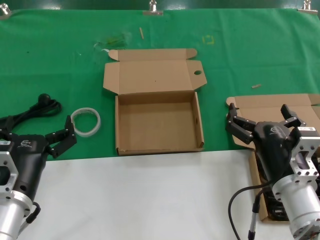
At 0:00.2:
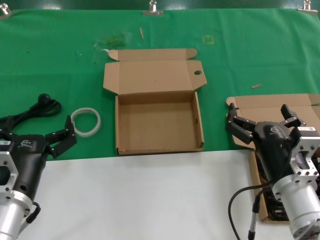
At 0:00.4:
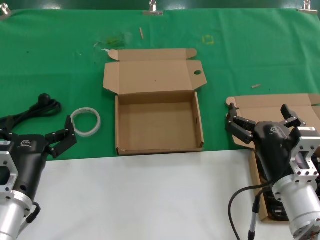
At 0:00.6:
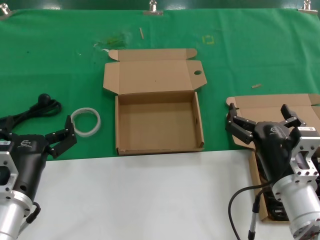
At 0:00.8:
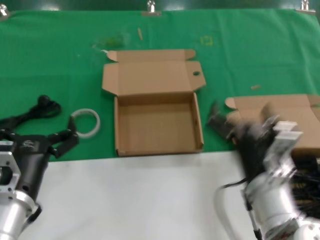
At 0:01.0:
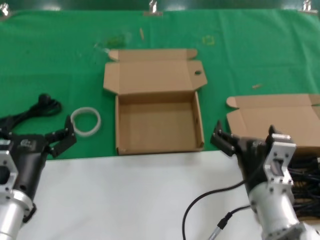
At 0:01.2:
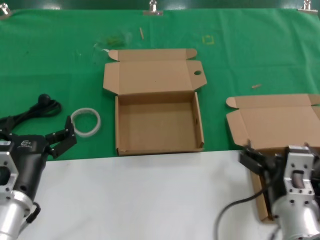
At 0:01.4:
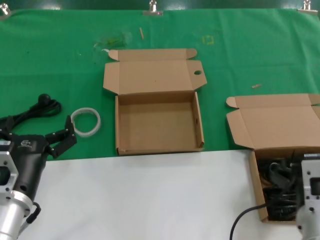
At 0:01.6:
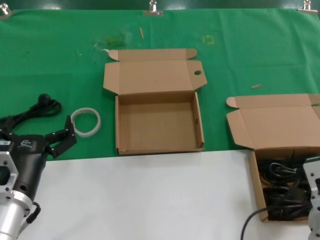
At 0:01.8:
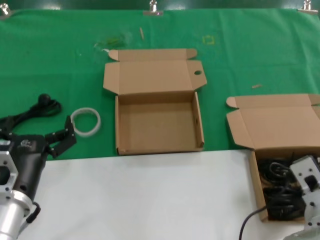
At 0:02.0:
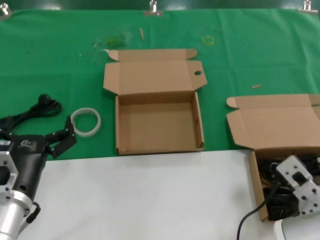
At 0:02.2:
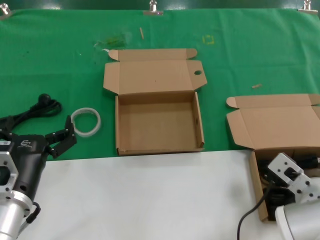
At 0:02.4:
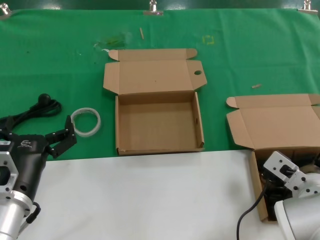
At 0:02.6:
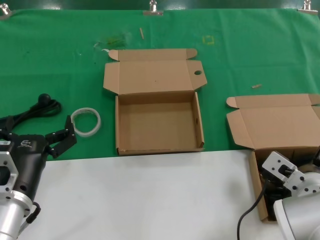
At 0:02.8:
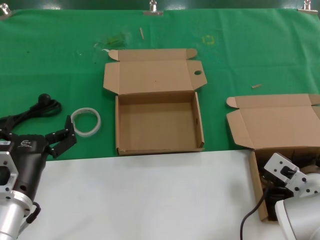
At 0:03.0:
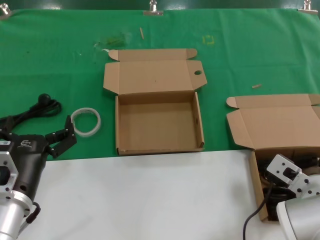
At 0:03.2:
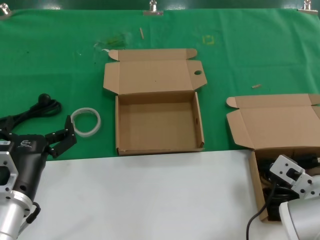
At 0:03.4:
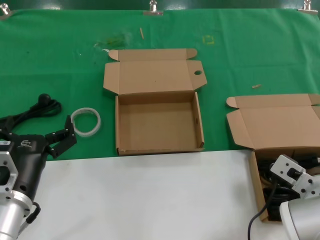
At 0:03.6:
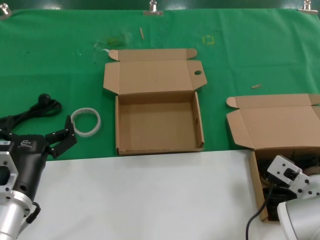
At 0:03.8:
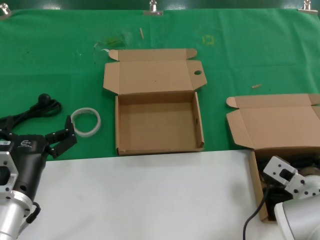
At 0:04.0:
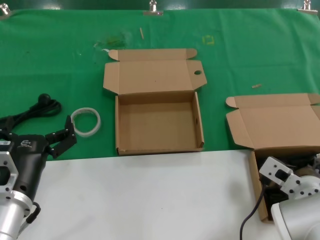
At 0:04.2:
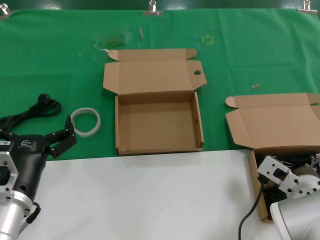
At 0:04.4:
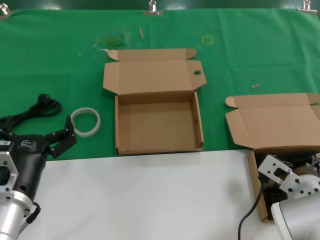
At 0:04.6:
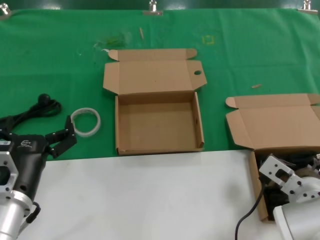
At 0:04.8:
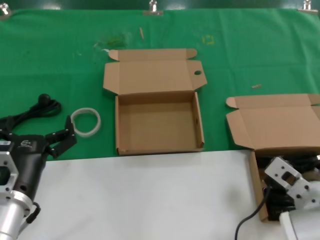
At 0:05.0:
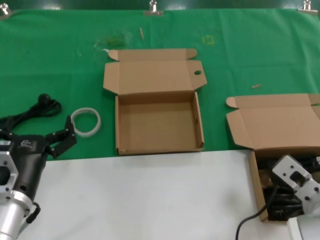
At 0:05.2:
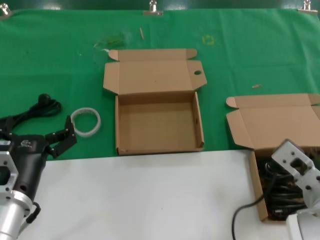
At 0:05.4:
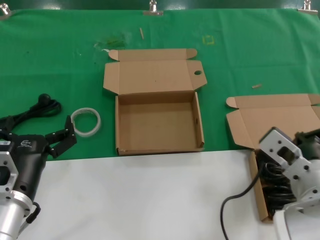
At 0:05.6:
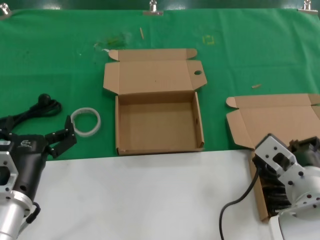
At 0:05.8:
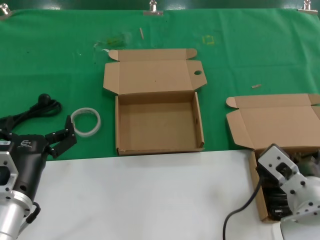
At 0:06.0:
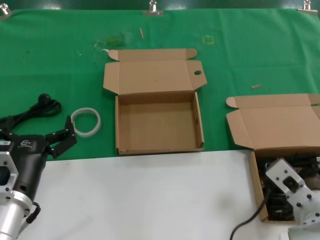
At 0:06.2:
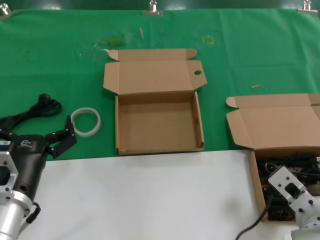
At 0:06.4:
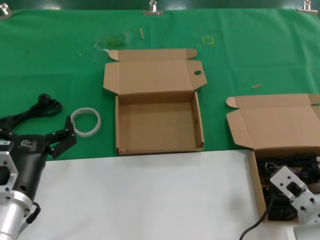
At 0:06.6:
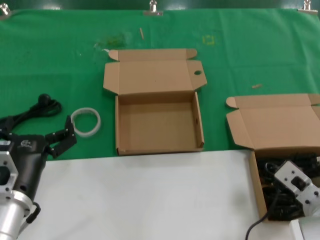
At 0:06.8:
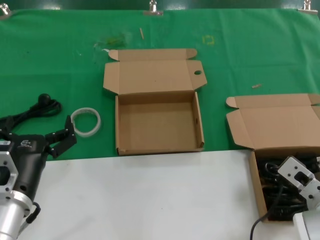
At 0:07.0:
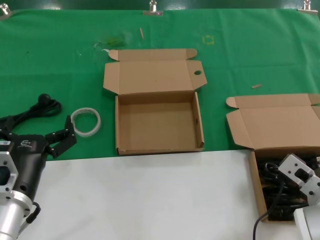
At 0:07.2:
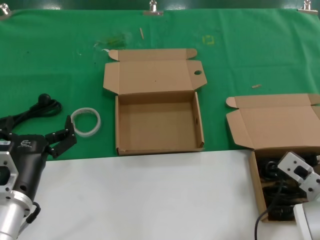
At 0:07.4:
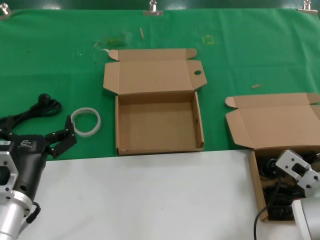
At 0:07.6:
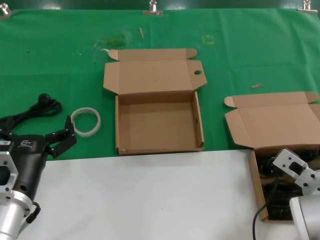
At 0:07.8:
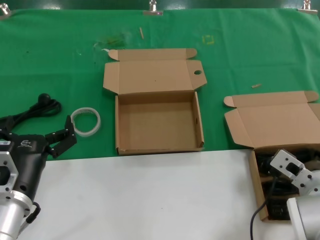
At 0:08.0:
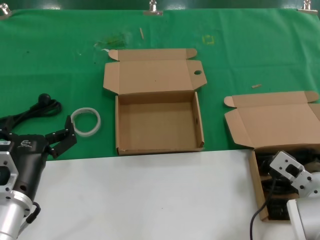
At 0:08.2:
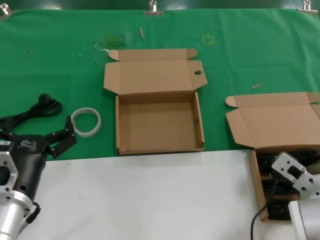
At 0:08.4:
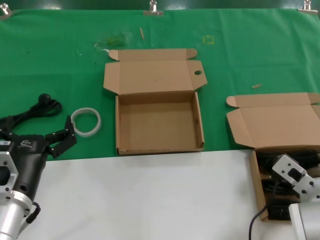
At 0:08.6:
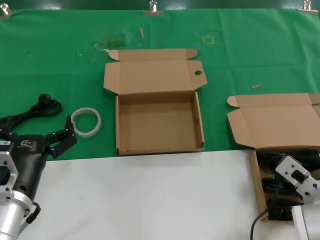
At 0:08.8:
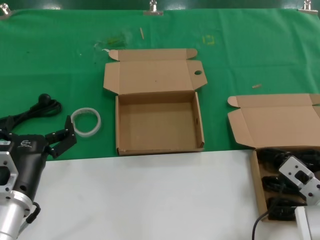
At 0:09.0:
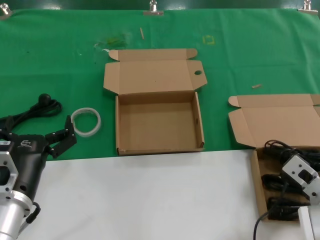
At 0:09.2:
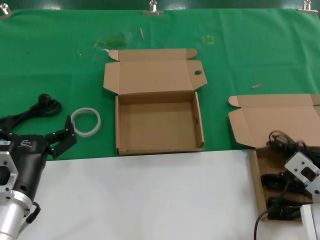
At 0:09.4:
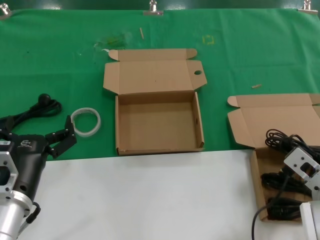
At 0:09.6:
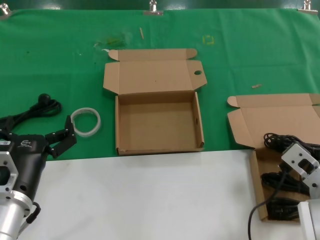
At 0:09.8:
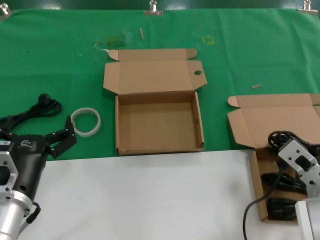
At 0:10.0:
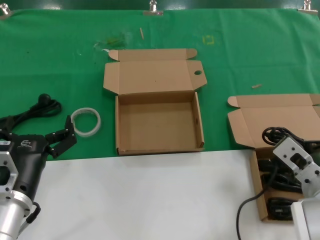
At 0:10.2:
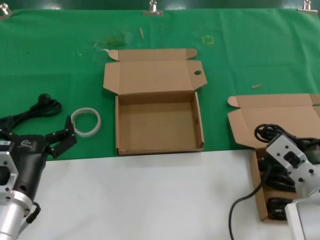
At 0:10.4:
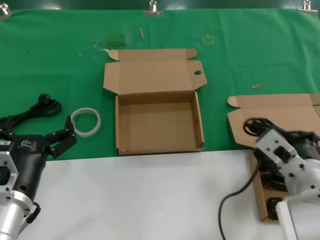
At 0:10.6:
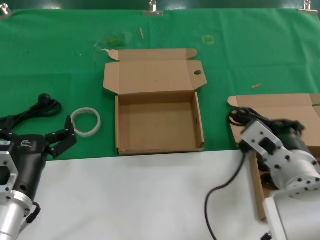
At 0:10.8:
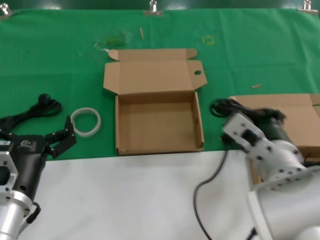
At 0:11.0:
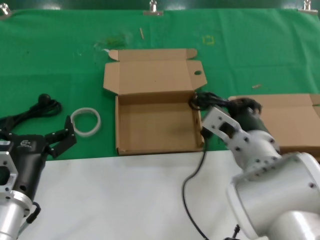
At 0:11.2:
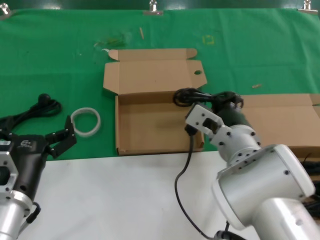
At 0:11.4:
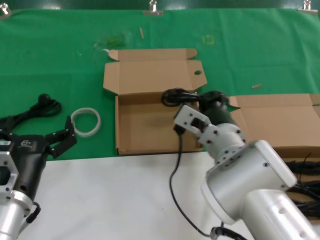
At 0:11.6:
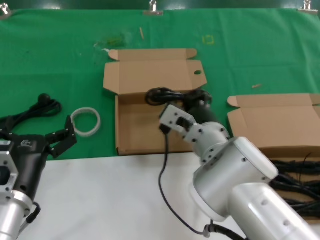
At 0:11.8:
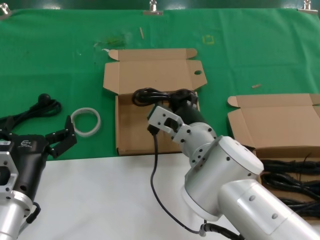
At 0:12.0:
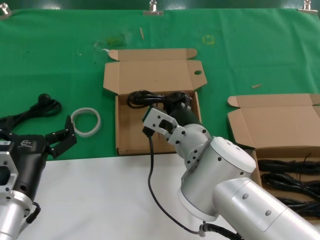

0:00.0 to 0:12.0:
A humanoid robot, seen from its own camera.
Task of the whole recording: take the parts from the box containing them and put them into an empty box.
Step, 0:00.0 to 0:08.6: Grasp the data cable.
0:00.0 to 0:01.6: The right hand moves about 5 cm.
0:01.6 to 0:03.0: The right hand is displaced forward by roughly 10 cm.
0:03.0 to 0:04.4: The hands make only small movements.
0:04.4 to 0:06.0: The right hand is displaced backward by some 5 cm.
0:06.0 to 0:07.6: The right hand is displaced forward and to the right by about 10 cm.
0:07.6 to 0:09.0: The hands move only a little.
0:09.0 to 0:10.4: The right hand goes approximately 10 cm upward and to the left.
0:10.4 to 0:12.0: The right hand moves to the left and forward, roughly 20 cm.

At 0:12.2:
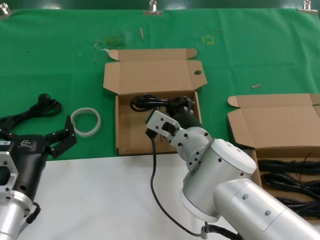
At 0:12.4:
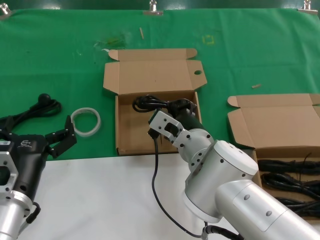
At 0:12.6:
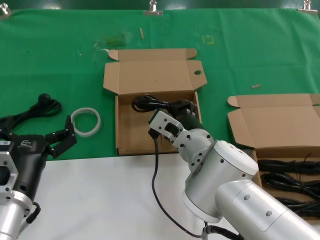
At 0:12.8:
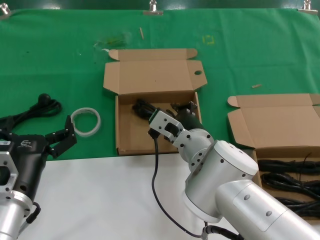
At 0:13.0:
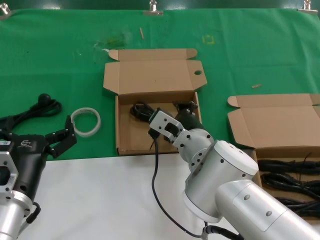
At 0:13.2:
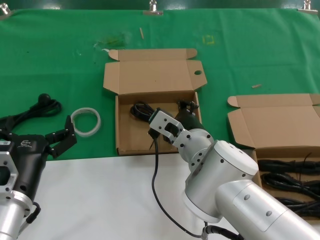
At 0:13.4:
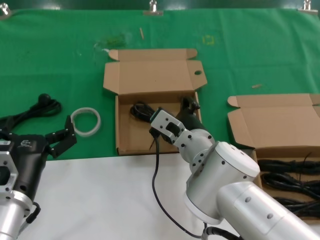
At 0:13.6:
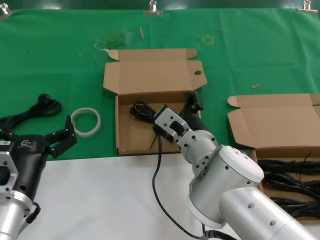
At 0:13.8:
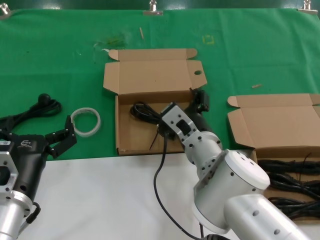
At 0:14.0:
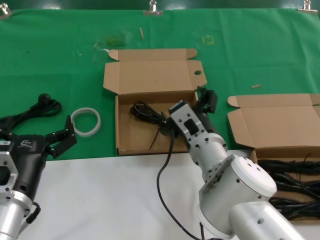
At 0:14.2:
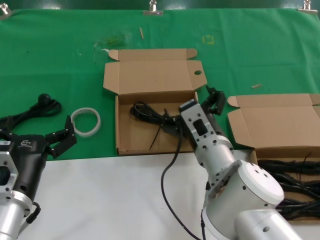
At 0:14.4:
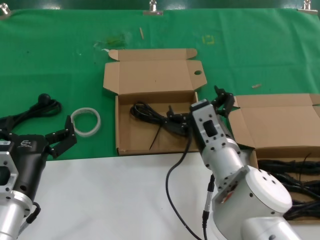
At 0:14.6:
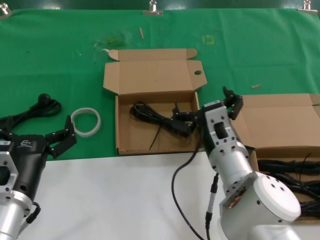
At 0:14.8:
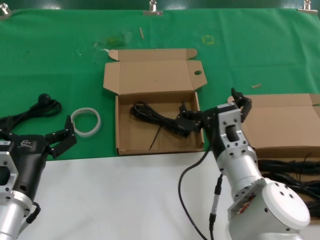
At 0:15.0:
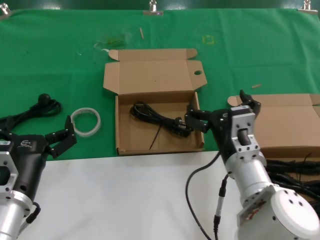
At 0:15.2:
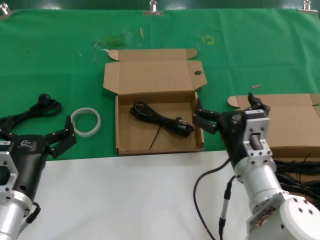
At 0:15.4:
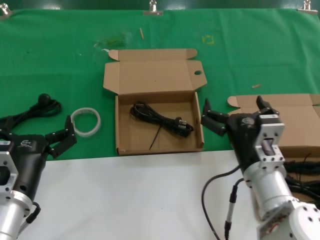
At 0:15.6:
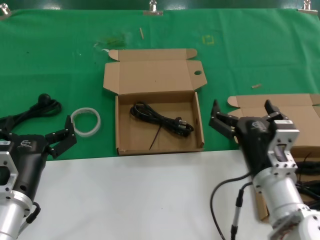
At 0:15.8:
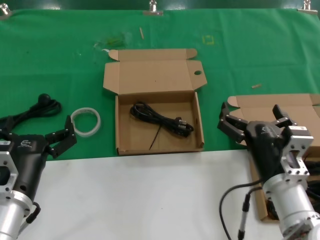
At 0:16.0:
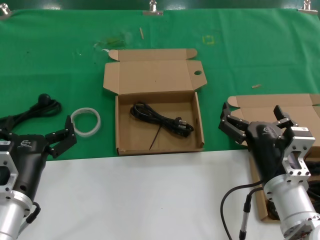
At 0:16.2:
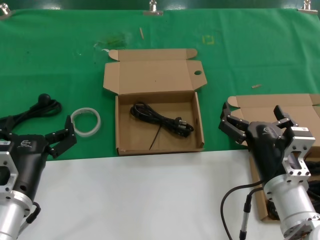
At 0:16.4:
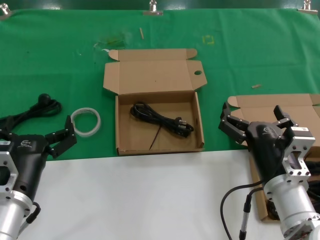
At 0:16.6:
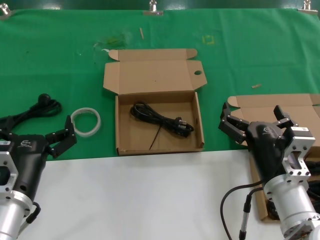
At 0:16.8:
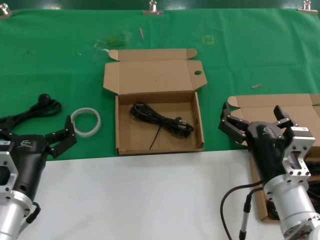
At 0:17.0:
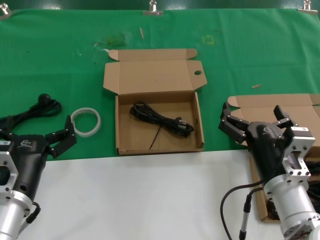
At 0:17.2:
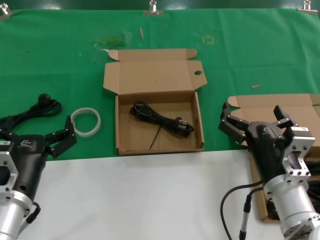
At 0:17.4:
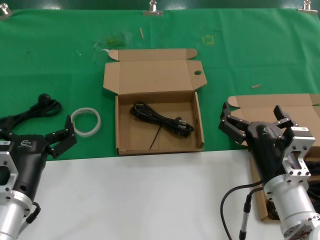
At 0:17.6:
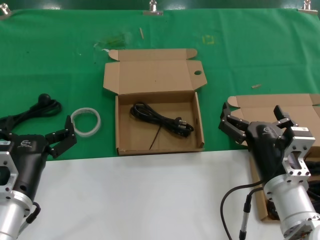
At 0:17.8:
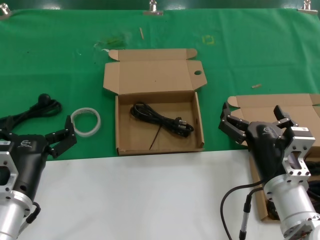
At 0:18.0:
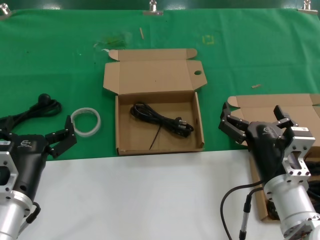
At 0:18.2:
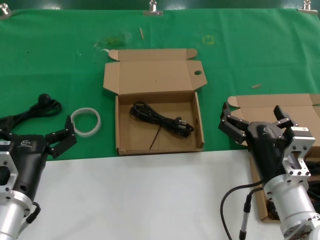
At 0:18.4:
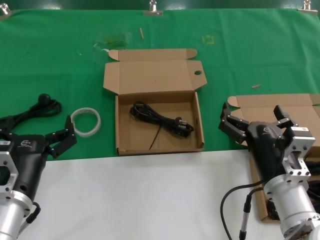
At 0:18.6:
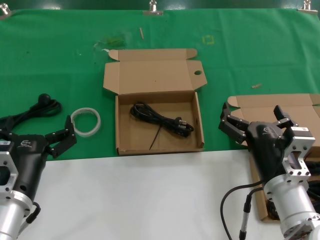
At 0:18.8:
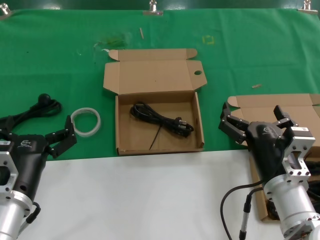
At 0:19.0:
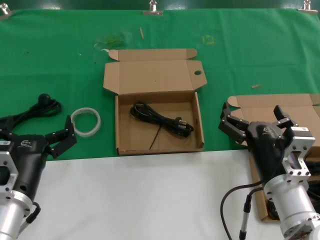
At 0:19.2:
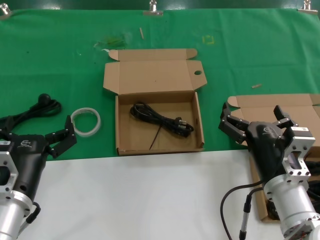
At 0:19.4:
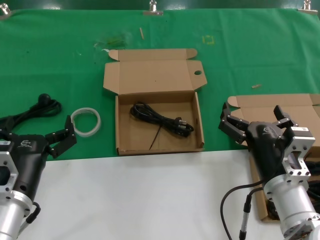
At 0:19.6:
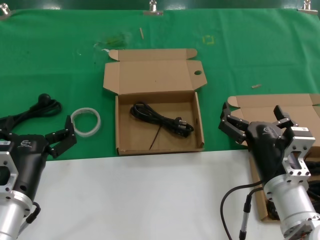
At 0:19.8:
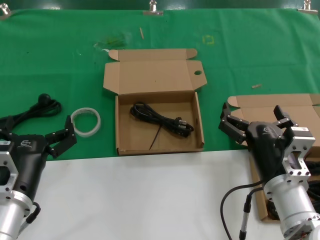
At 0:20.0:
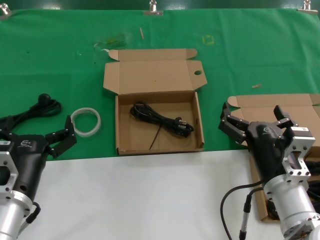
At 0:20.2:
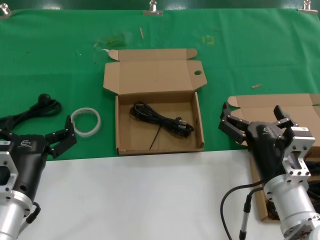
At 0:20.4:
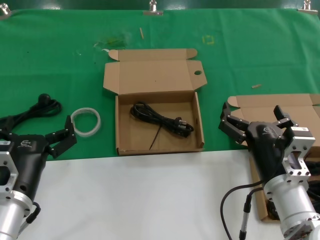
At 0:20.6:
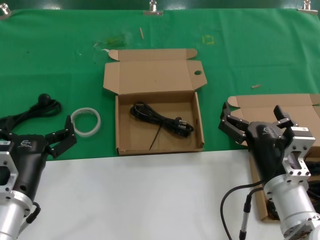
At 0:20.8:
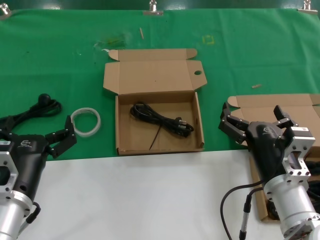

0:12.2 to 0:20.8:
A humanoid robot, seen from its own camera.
Task of the whole recording: take the parts from the box containing them and put them into an empty box.
0:12.2 to 0:13.6: There are only small adjustments of the hands.
0:13.6 to 0:15.0: The right hand shifts approximately 10 cm to the right and backward.
0:15.0 to 0:16.6: The right hand is displaced to the right and backward by about 10 cm.
0:16.6 to 0:20.8: Both hands stay put.
